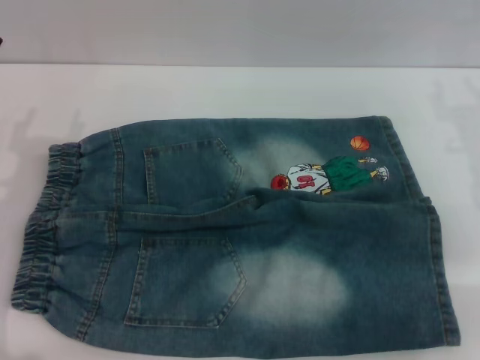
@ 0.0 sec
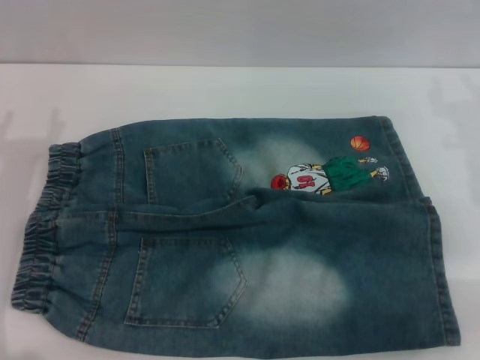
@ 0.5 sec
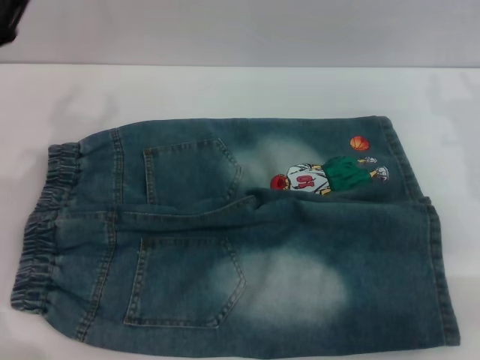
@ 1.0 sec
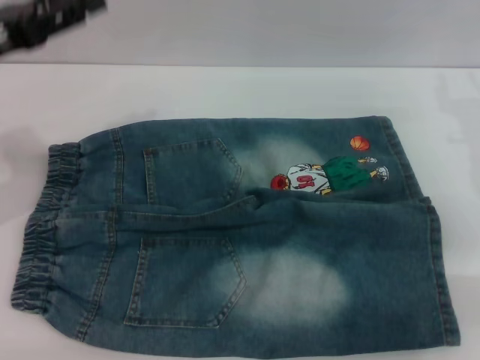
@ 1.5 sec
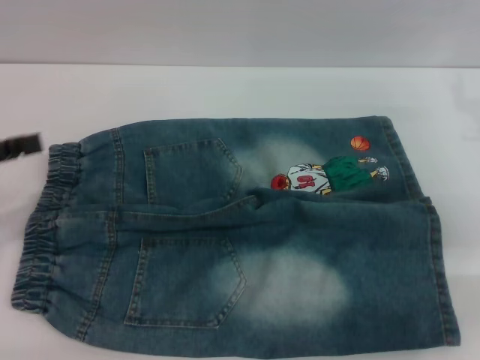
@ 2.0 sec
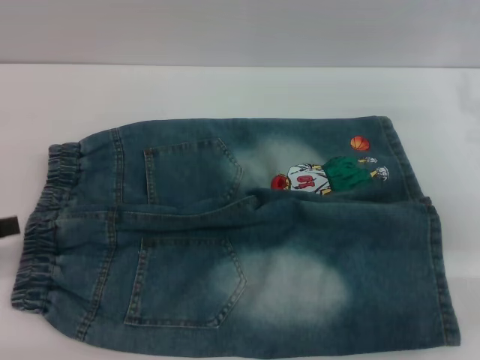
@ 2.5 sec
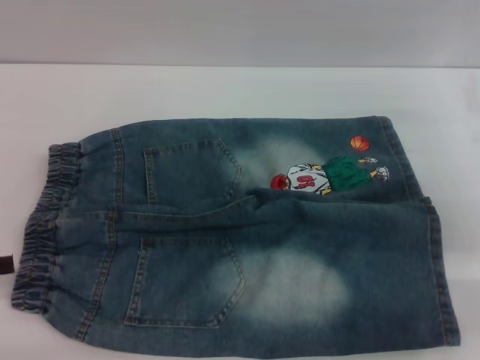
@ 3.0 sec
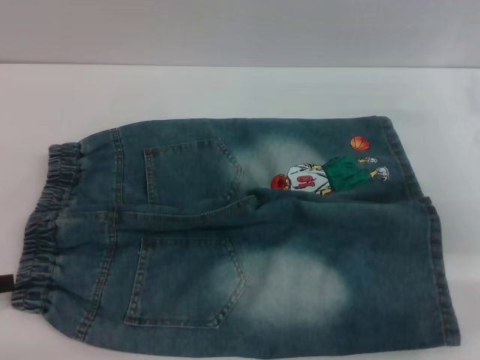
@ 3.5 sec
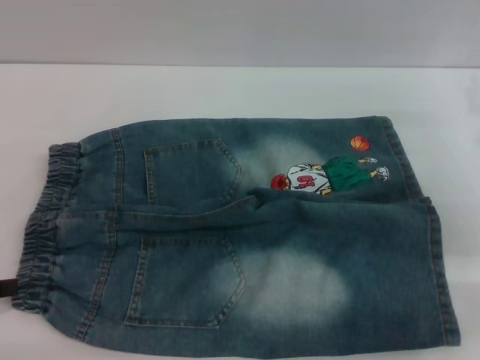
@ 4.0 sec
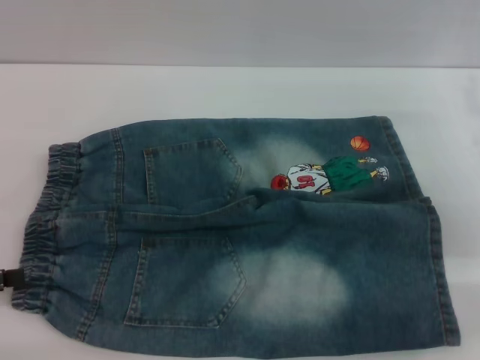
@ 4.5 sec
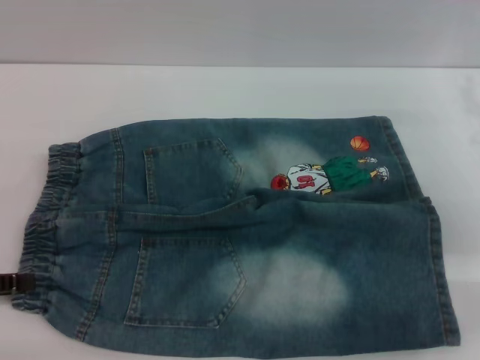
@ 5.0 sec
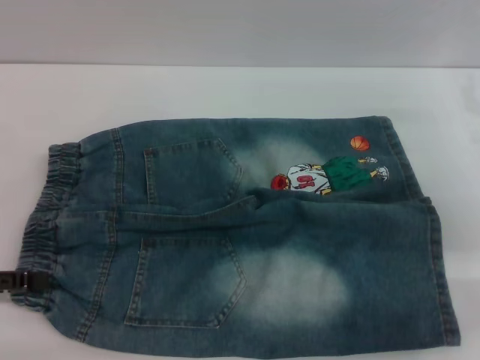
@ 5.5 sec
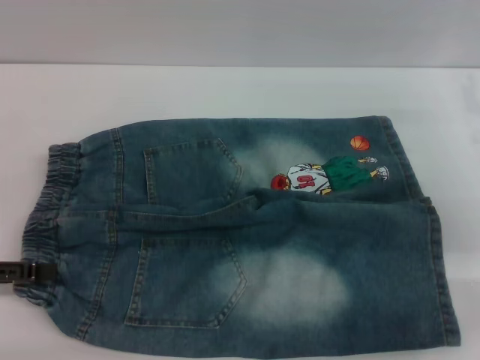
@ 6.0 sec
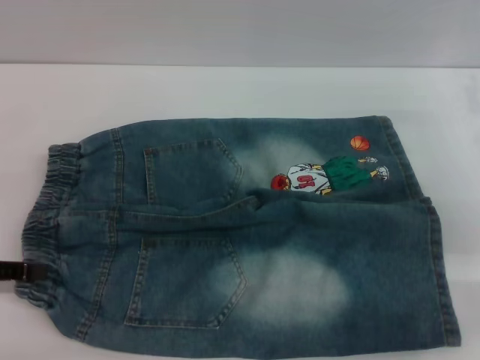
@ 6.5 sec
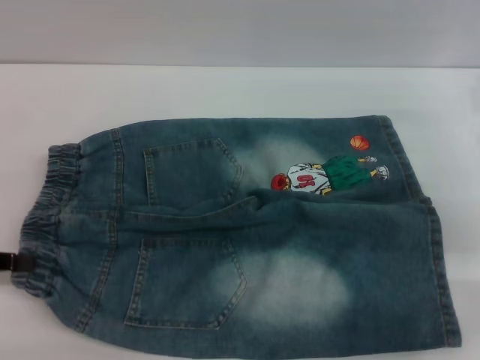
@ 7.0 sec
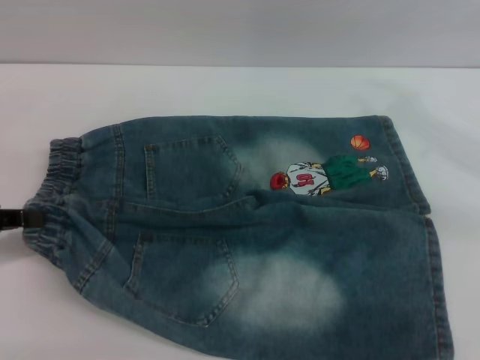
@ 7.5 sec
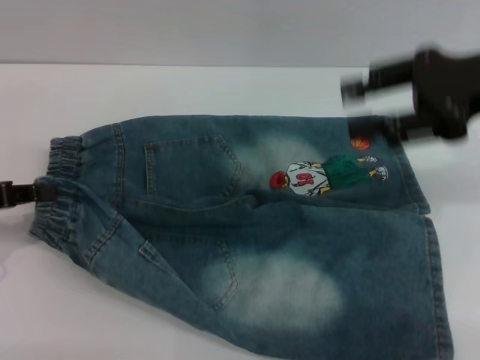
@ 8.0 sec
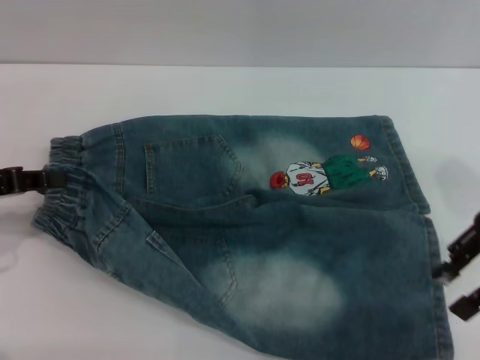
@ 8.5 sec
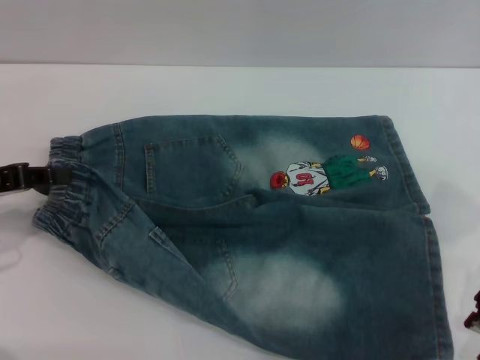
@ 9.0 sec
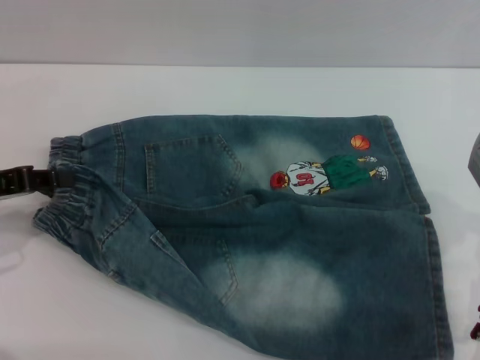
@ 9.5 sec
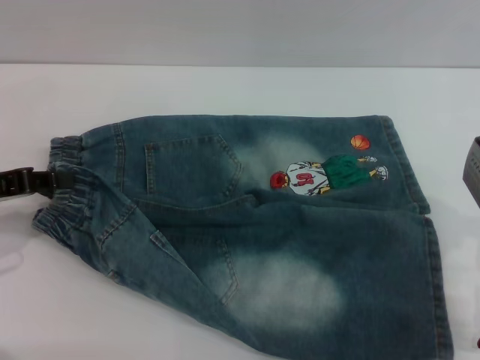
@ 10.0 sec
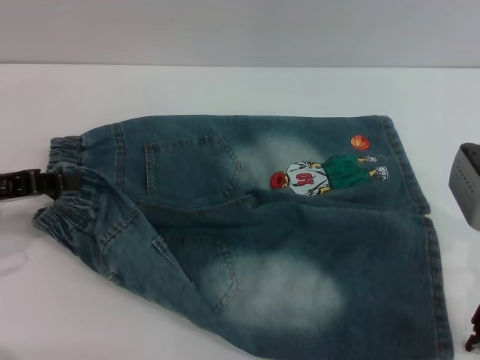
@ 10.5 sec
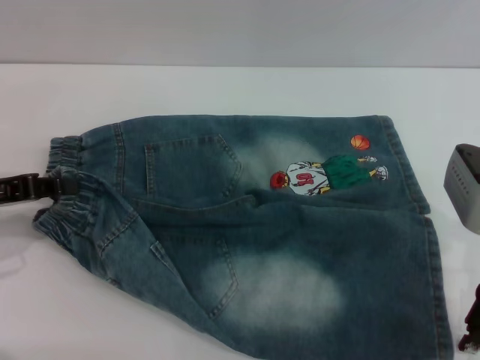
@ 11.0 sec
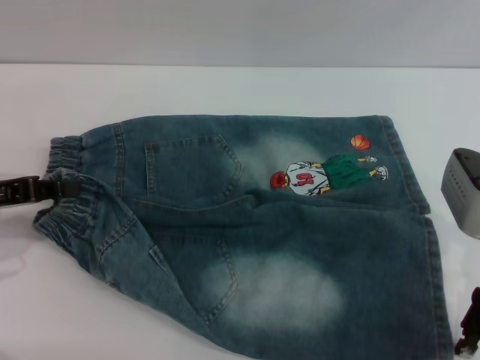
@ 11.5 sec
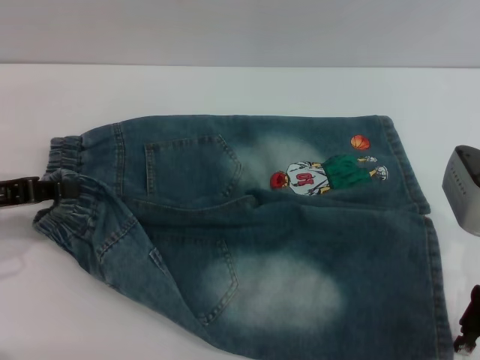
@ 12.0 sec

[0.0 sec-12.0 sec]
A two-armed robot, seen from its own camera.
0.0 sec to 2.0 sec: The left gripper is displaced to the left and upward by approximately 10 cm.
2.0 sec to 4.0 sec: The left gripper heads backward and downward, covering approximately 10 cm.
4.0 sec to 6.0 sec: The left gripper moves approximately 5 cm.
6.0 sec to 8.0 sec: The right gripper heads upward and to the left, covering about 15 cm. The left gripper closes up.
8.0 sec to 10.0 sec: The right gripper heads downward, covering roughly 10 cm.
10.0 sec to 12.0 sec: The grippers stay close to where they were, moving slightly.

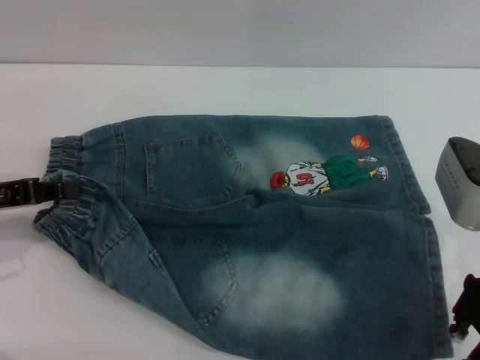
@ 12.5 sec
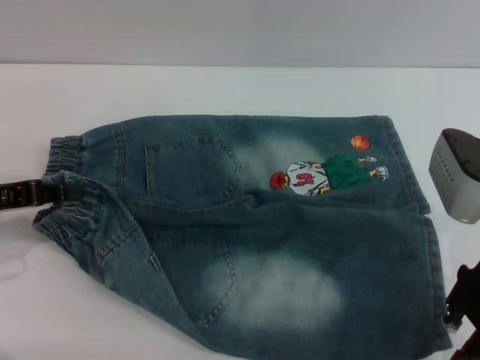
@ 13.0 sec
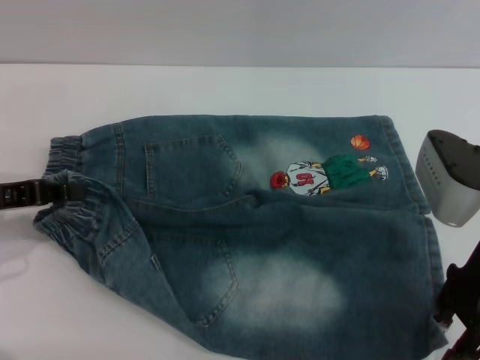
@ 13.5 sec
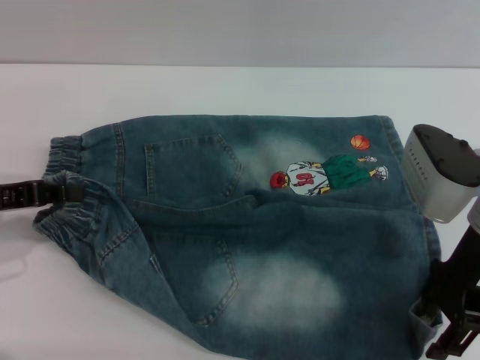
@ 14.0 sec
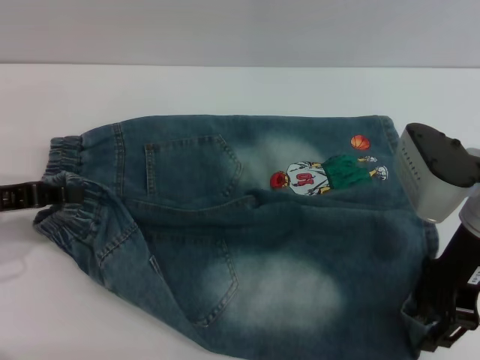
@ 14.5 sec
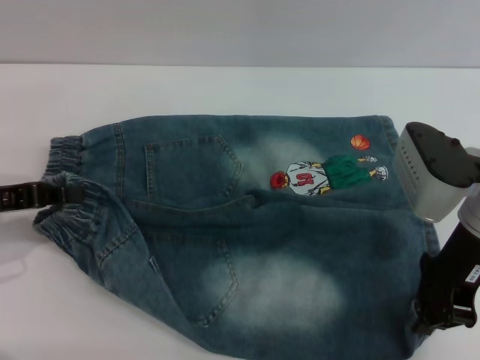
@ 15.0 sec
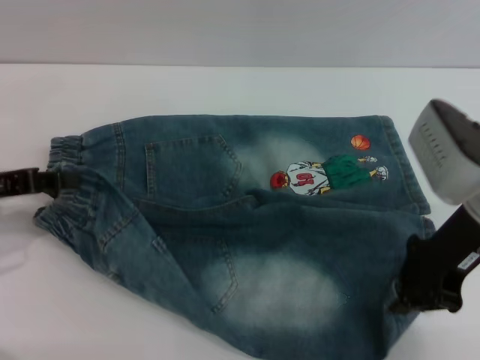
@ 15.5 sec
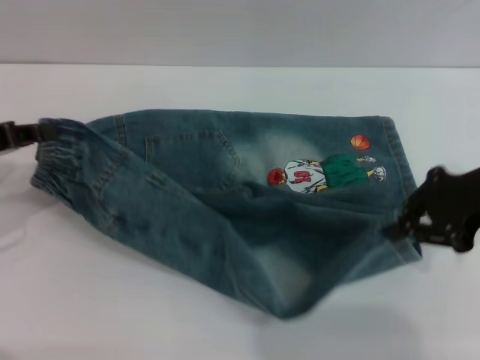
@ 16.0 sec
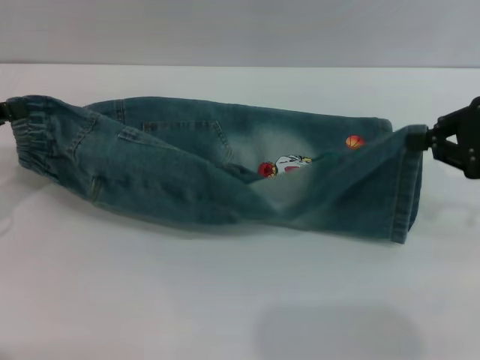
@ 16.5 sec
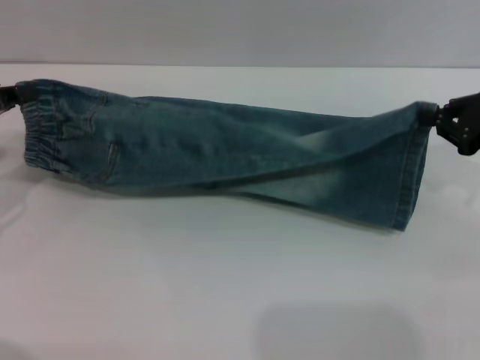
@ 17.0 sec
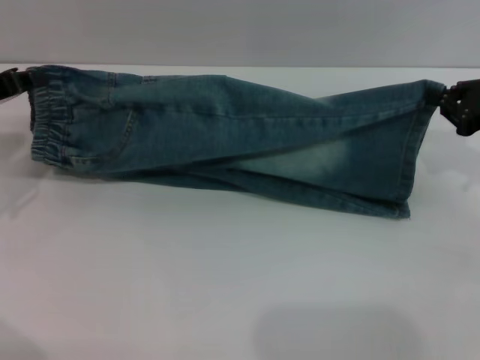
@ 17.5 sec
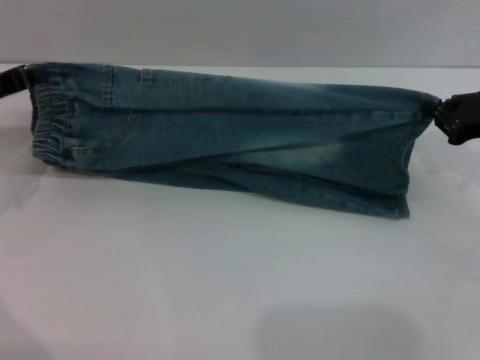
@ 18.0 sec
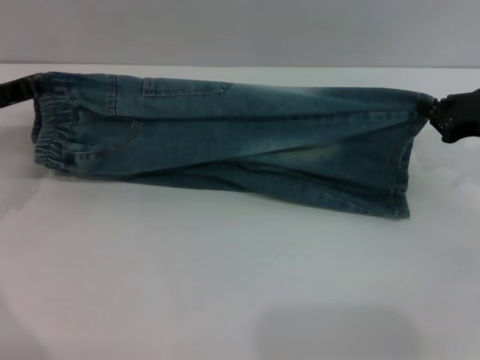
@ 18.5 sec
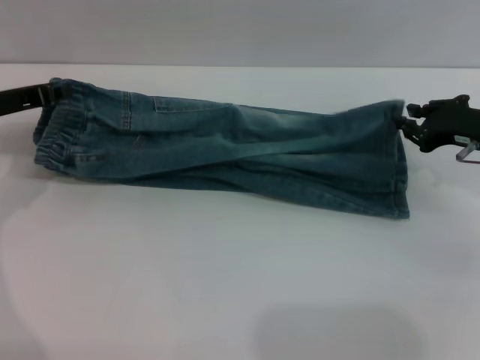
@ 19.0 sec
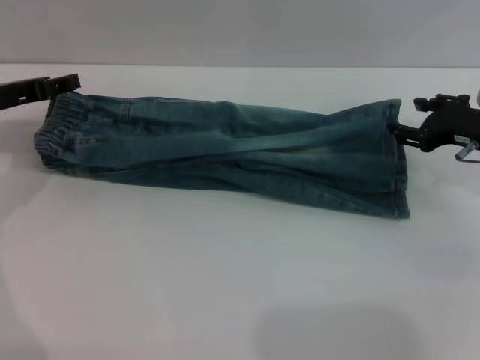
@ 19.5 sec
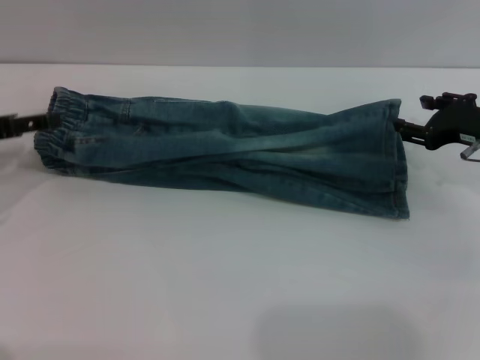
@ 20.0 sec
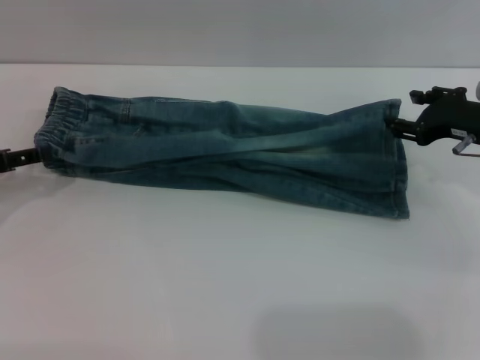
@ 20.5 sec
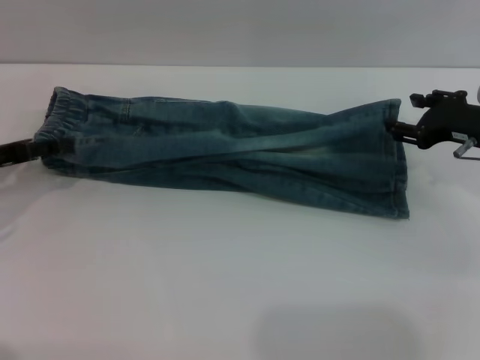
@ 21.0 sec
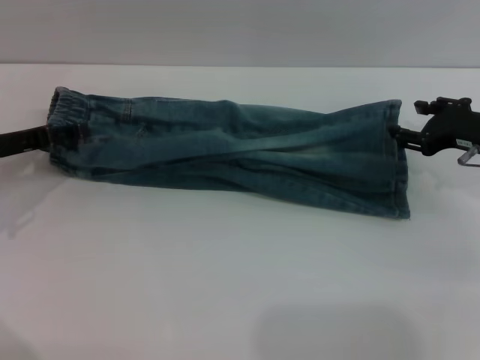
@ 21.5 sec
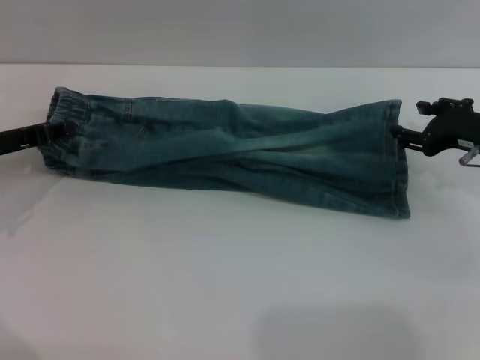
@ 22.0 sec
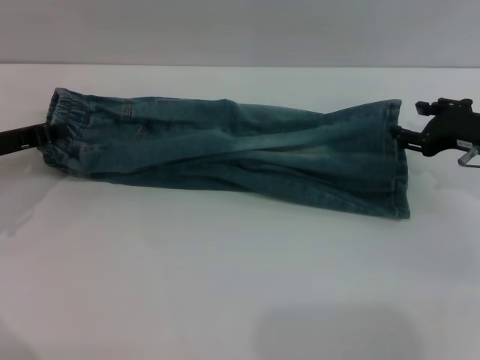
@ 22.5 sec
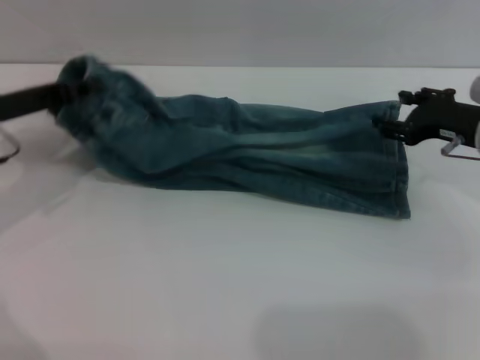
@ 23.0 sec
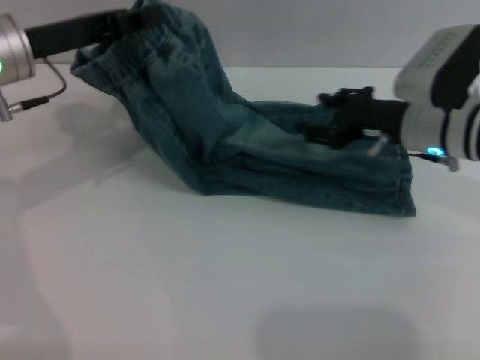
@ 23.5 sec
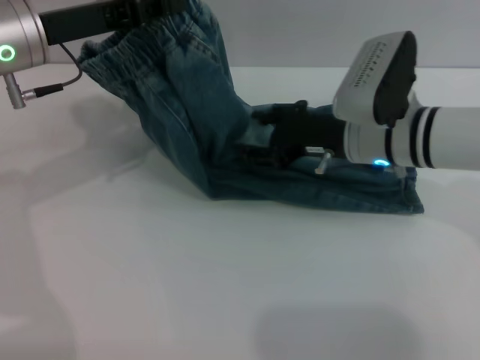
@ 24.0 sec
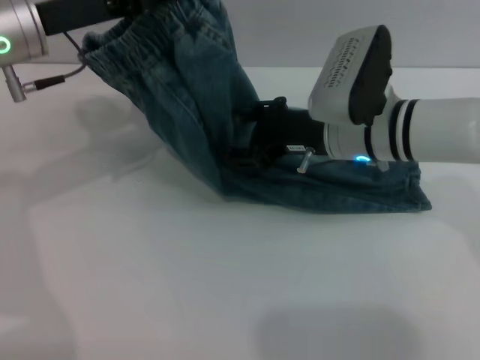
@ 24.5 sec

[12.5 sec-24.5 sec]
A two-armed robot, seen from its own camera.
Step, 12.5 sec to 19.5 sec: Fold the bottom of the pants upward with both grippers.
12.5 sec to 14.5 sec: The grippers stay close to where they were, moving slightly.
14.5 sec to 16.5 sec: The right gripper is displaced to the right by roughly 10 cm, and closes up.
16.5 sec to 18.5 sec: The right gripper heads downward, covering about 5 cm. Meanwhile the left gripper goes some 5 cm forward.
18.5 sec to 20.5 sec: The right gripper opens; the left gripper is displaced backward by roughly 5 cm, and opens.
20.5 sec to 22.5 sec: The left gripper changes place by roughly 5 cm, and closes its fingers.
22.5 sec to 24.5 sec: The right gripper goes about 15 cm to the left. The left gripper is displaced upward and to the right by some 15 cm.

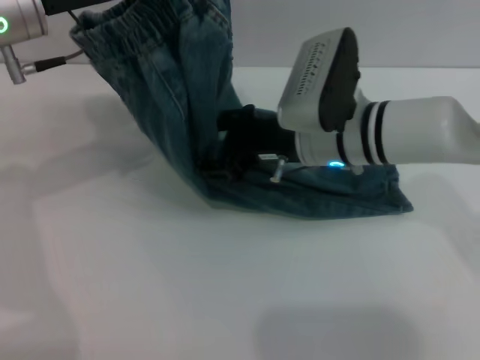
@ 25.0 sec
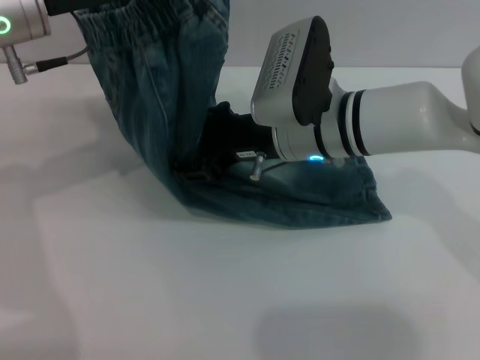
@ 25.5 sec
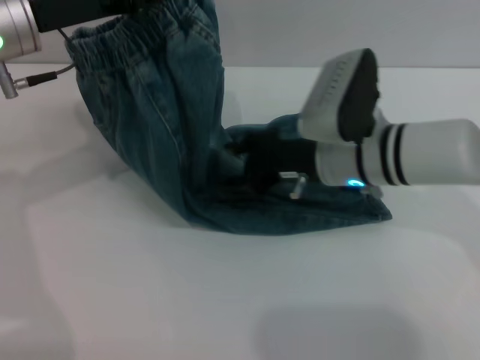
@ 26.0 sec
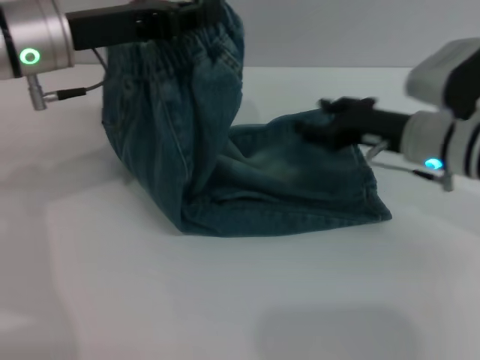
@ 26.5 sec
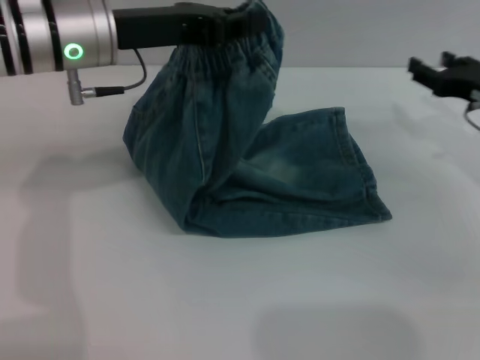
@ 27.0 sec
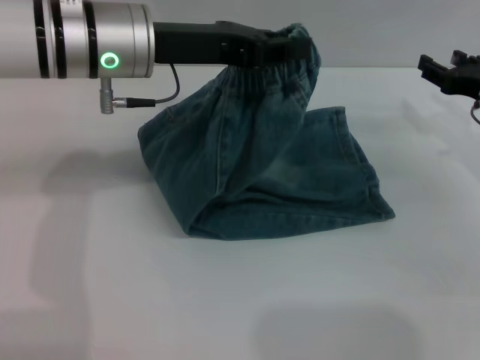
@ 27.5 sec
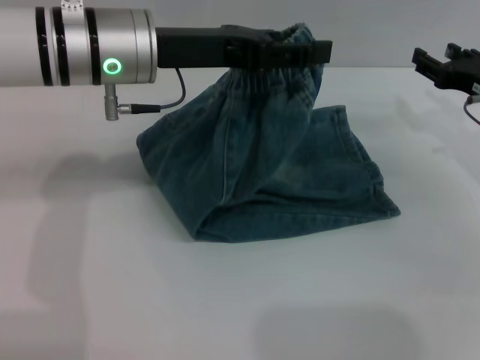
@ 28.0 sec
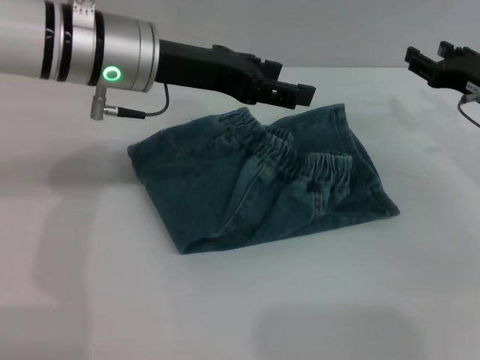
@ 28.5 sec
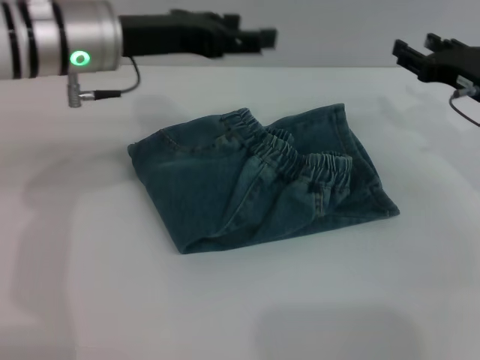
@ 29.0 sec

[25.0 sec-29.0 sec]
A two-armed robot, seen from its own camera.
Step, 25.0 sec to 28.5 sec: Fold the pants from left to right with the left gripper.
25.0 sec to 27.0 sec: The right gripper moves to the right, approximately 20 cm. Meanwhile the left gripper moves about 5 cm.
27.0 sec to 29.0 sec: The left gripper opens.
